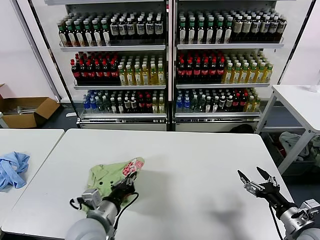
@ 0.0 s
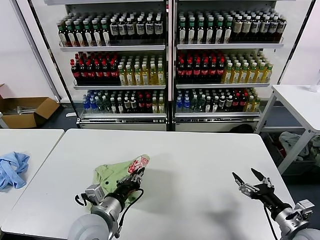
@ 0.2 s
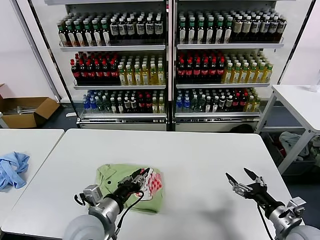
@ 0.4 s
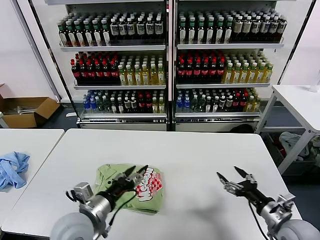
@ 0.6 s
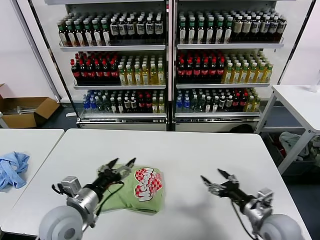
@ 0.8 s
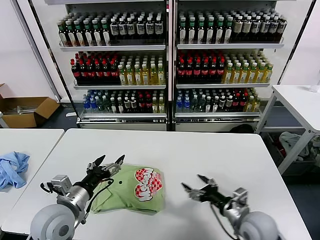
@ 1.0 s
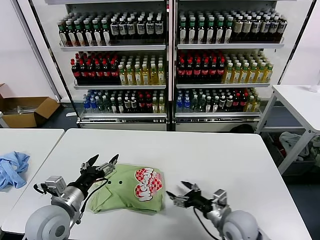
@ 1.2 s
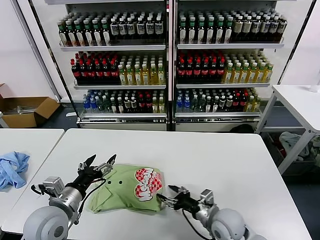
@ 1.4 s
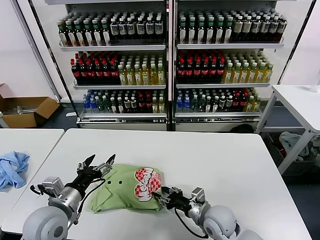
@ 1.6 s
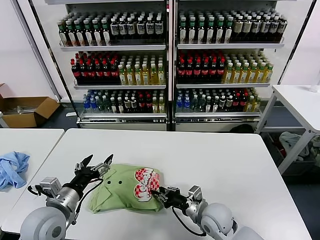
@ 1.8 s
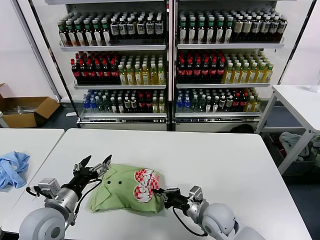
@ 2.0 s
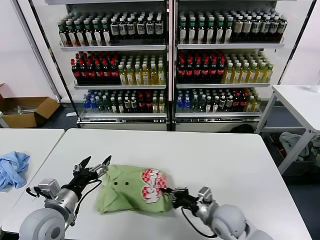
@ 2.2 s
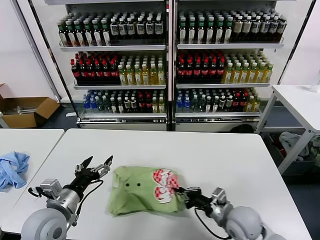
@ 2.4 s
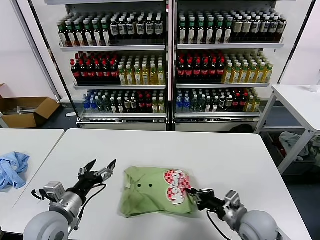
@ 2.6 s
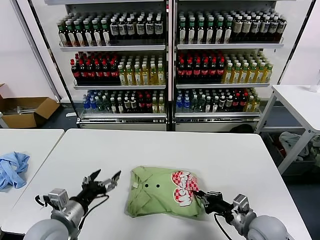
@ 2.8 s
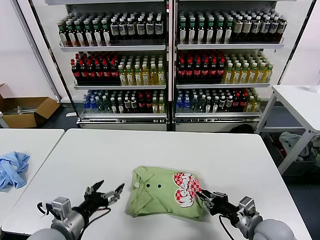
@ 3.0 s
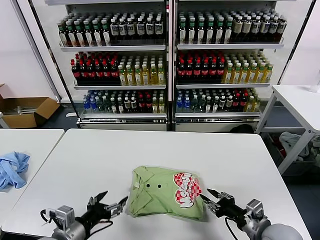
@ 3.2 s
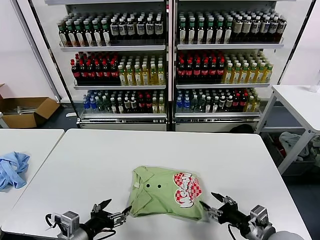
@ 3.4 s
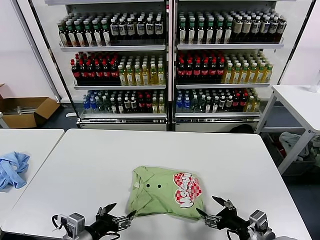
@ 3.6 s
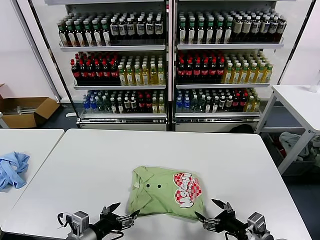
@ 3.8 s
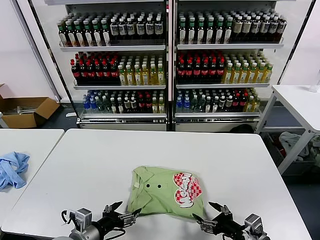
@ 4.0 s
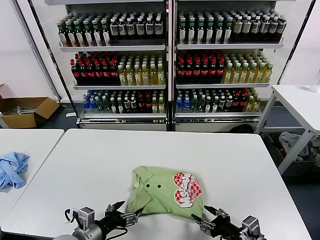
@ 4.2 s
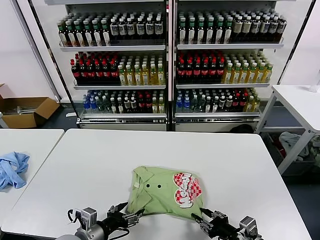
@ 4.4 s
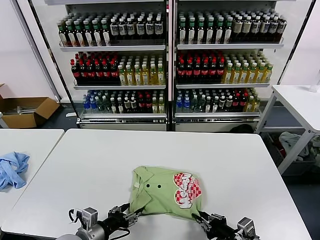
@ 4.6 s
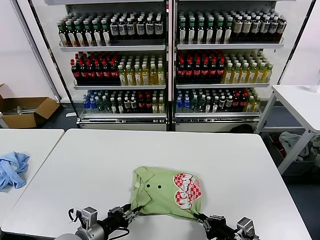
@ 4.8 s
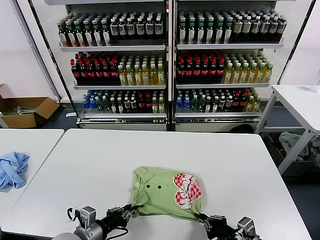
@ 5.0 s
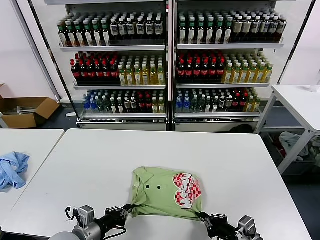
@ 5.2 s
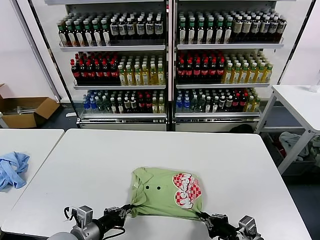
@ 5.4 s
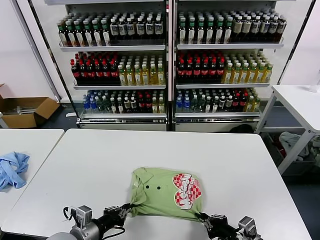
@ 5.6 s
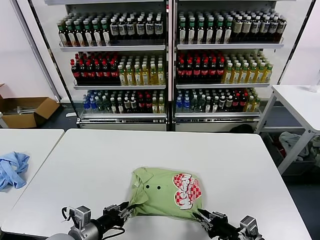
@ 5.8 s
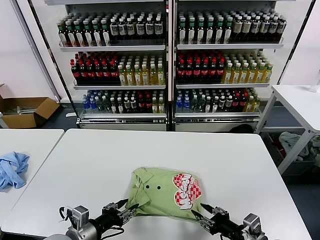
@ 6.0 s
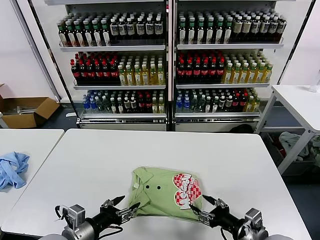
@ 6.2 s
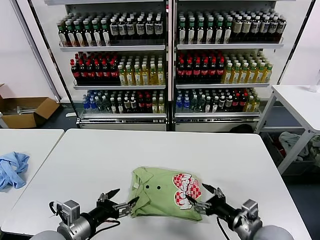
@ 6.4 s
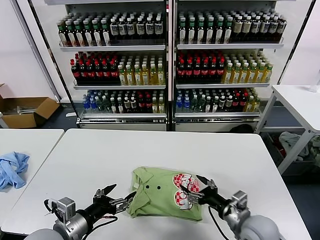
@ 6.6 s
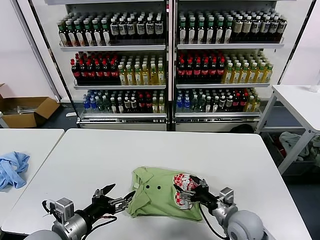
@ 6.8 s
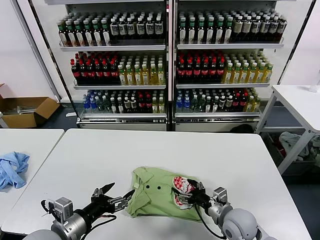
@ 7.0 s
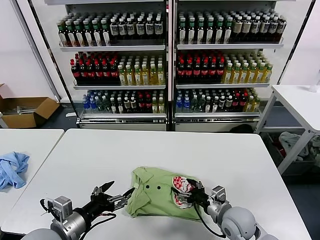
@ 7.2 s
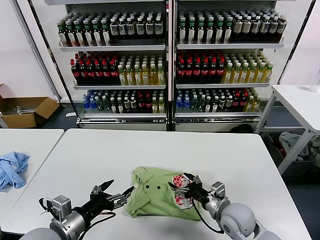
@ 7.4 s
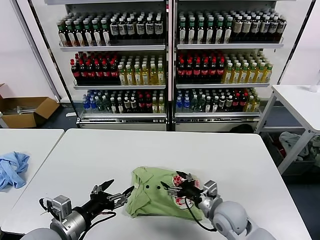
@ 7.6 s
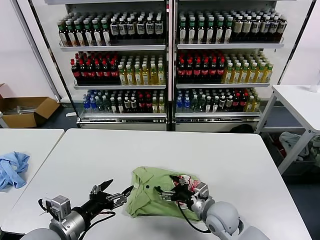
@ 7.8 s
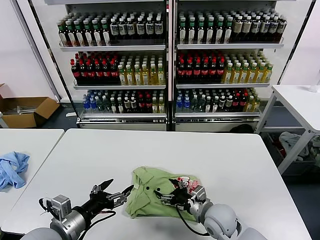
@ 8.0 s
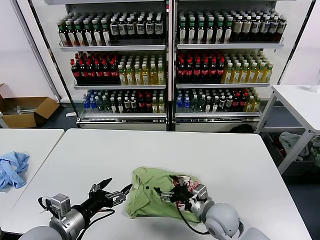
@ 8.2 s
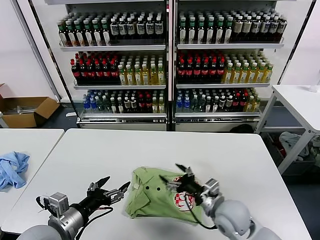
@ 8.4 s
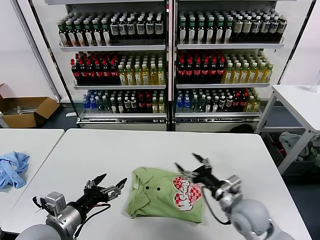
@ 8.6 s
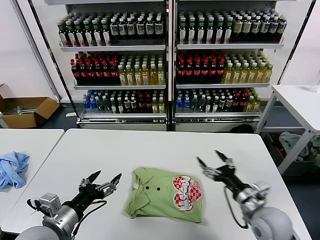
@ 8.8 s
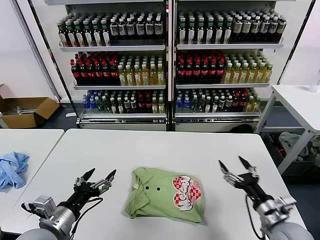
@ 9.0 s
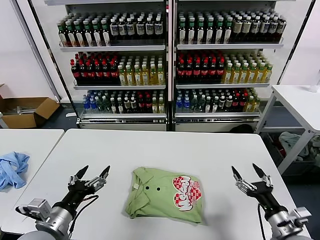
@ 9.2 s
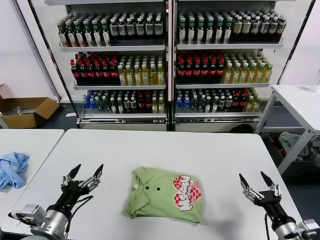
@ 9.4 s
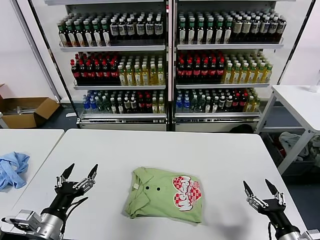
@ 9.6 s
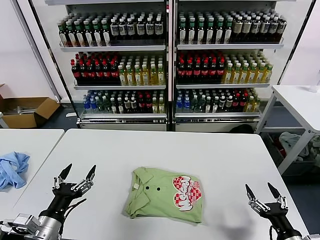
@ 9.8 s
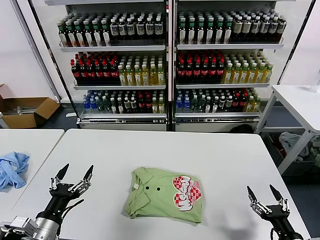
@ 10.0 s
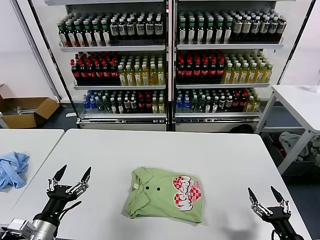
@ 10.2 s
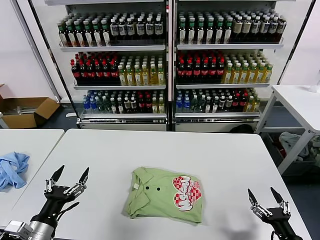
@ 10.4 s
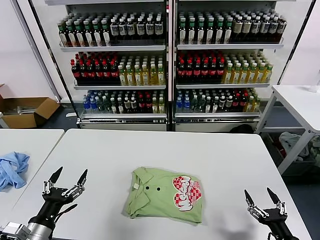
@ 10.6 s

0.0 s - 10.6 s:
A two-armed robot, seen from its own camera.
Task of the whole recording: fold and organize the clothes.
Step, 0.6 s - 8.4 s: Drag the clothes to the center of the table.
0.0 s - 1.6 s: The right gripper heads to the left and forward, covering approximately 25 cm, and closes; the left gripper heads to the left, covering roughly 10 cm, and opens its fingers.
1.6 s - 3.0 s: The right gripper is displaced to the right, backward and upward by about 15 cm, and closes up.
3.0 s - 4.6 s: The right gripper shifts about 5 cm backward, and opens and closes again. Meanwhile the left gripper ends up about 5 cm from where it was.
4.6 s - 6.0 s: The left gripper closes, then opens again.
6.0 s - 7.6 s: The right gripper shifts approximately 15 cm forward and to the left, and opens. Meanwhile the left gripper travels upward by some 5 cm, and opens.
7.6 s - 9.0 s: The right gripper is displaced to the right and backward by approximately 15 cm.
9.0 s - 10.6 s: The left gripper ends up roughly 5 cm from where it was; the right gripper is displaced backward, to the right and downward by about 15 cm.

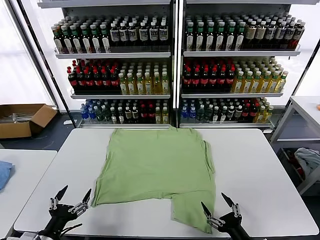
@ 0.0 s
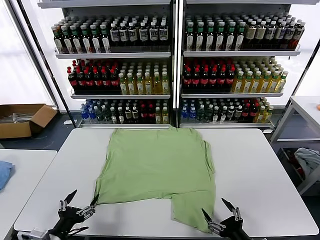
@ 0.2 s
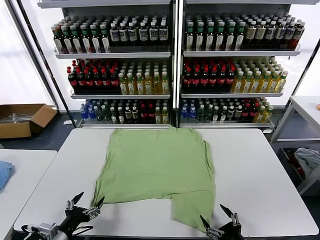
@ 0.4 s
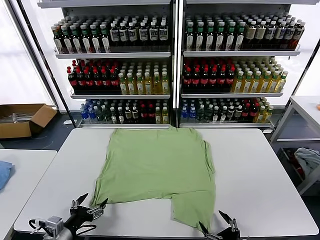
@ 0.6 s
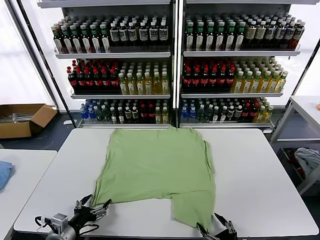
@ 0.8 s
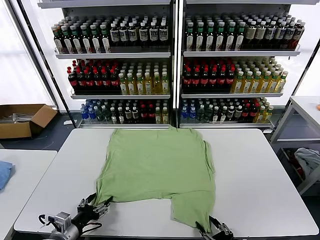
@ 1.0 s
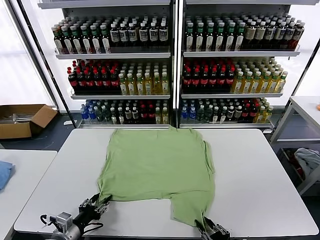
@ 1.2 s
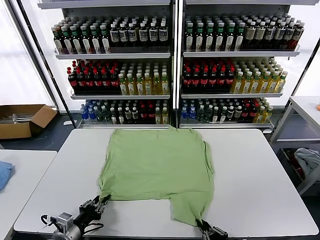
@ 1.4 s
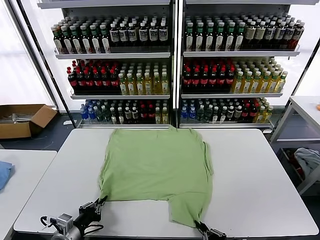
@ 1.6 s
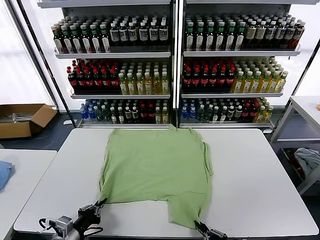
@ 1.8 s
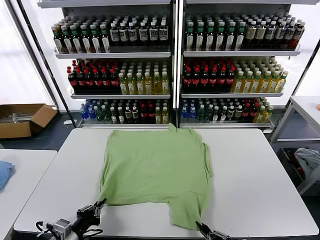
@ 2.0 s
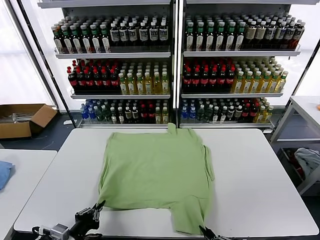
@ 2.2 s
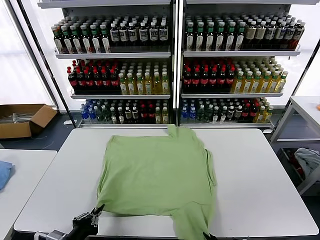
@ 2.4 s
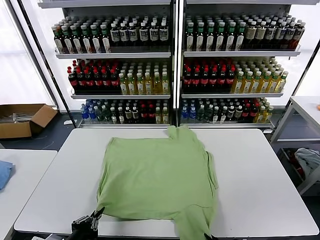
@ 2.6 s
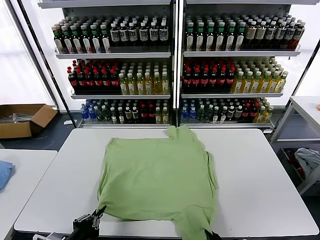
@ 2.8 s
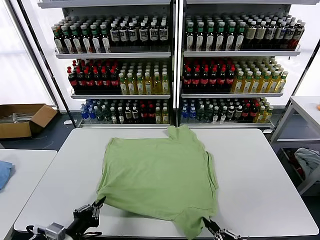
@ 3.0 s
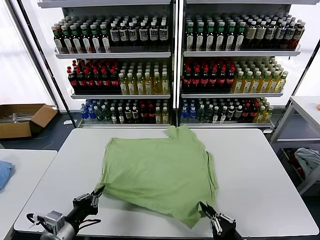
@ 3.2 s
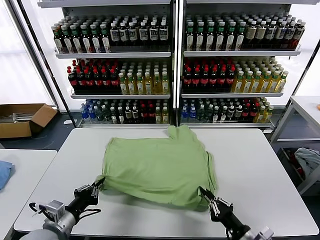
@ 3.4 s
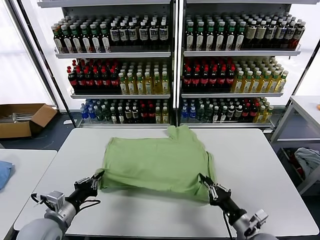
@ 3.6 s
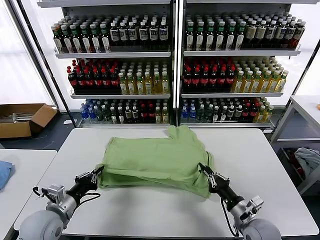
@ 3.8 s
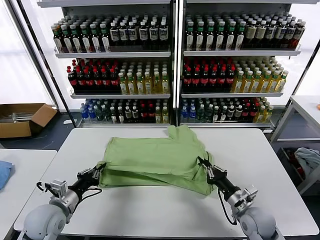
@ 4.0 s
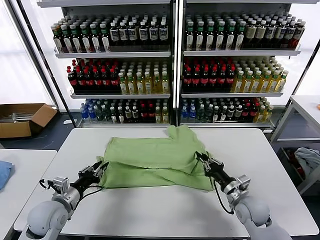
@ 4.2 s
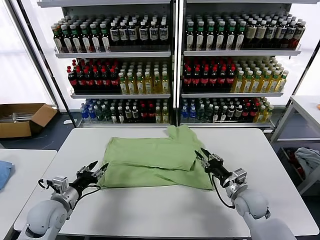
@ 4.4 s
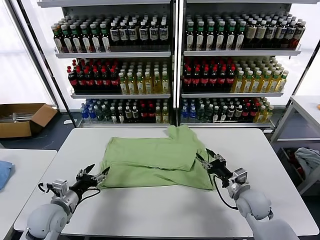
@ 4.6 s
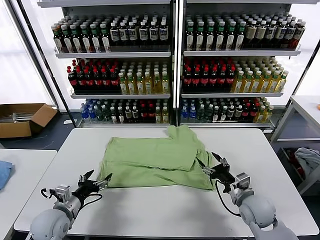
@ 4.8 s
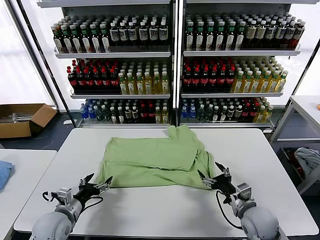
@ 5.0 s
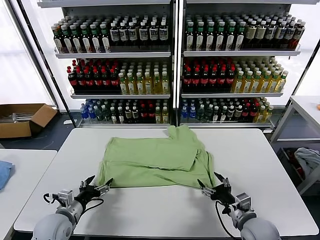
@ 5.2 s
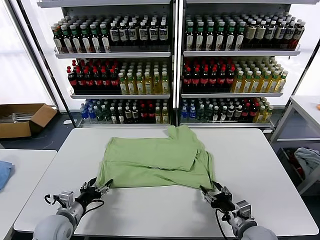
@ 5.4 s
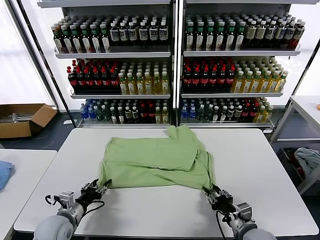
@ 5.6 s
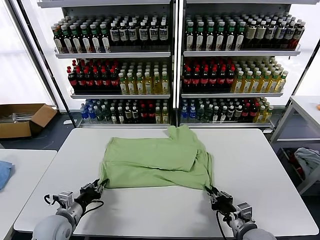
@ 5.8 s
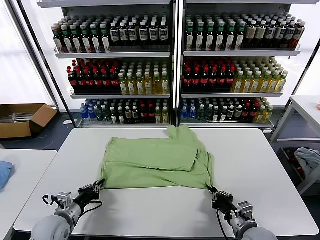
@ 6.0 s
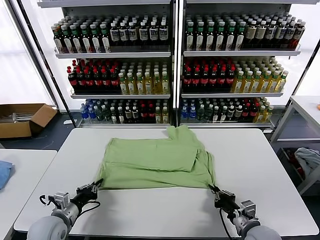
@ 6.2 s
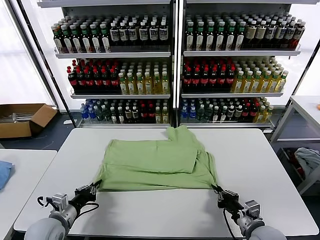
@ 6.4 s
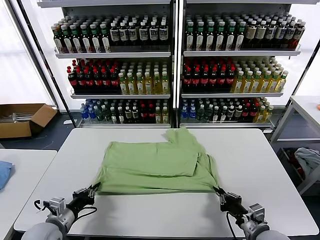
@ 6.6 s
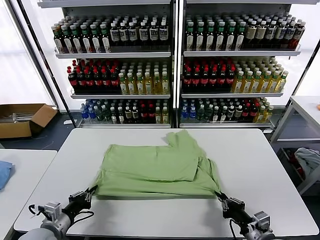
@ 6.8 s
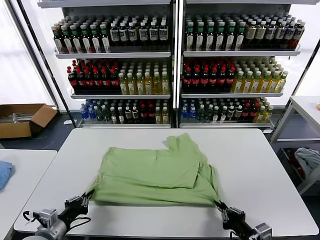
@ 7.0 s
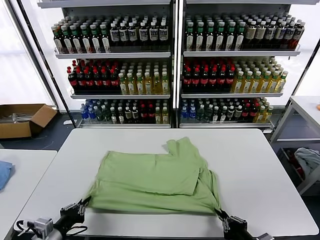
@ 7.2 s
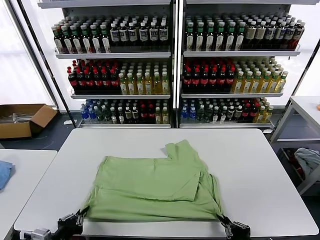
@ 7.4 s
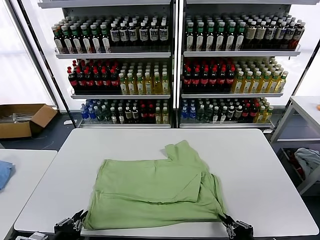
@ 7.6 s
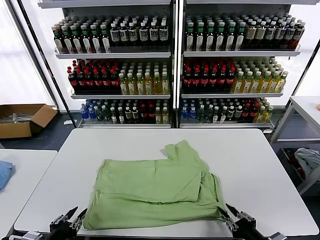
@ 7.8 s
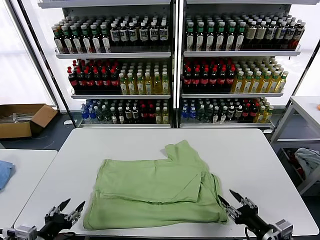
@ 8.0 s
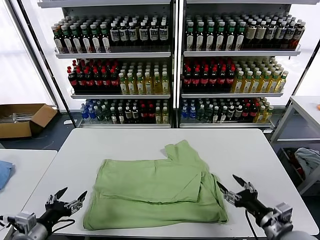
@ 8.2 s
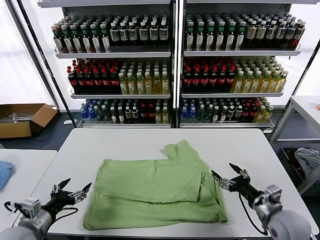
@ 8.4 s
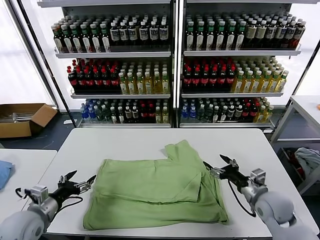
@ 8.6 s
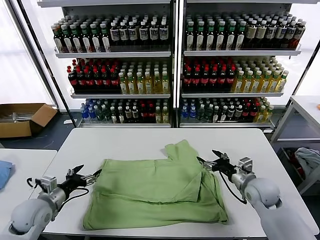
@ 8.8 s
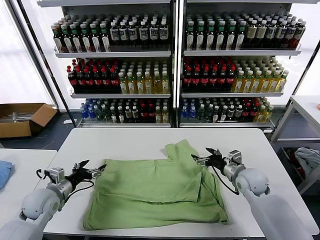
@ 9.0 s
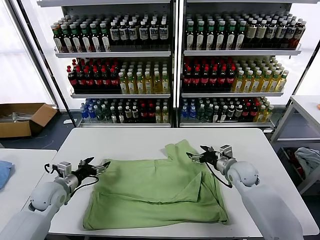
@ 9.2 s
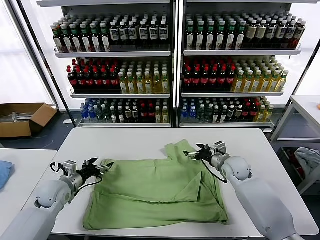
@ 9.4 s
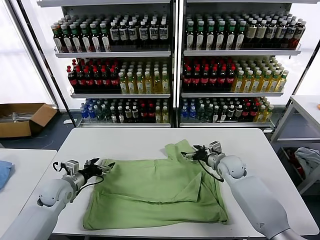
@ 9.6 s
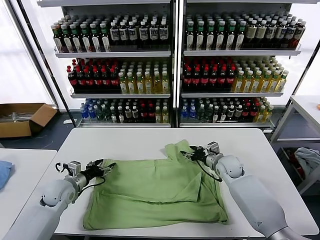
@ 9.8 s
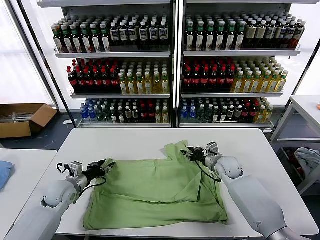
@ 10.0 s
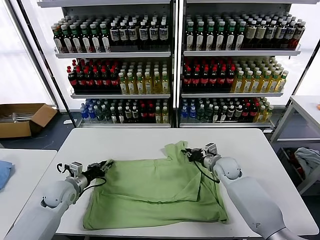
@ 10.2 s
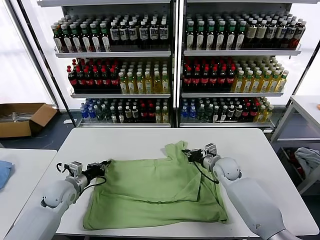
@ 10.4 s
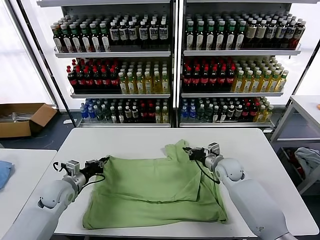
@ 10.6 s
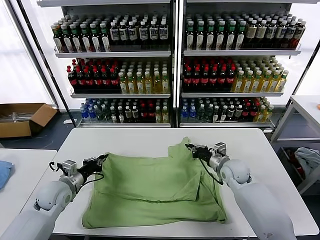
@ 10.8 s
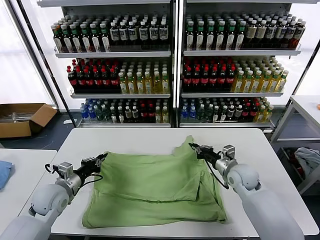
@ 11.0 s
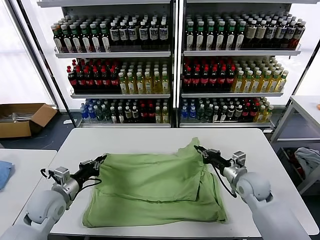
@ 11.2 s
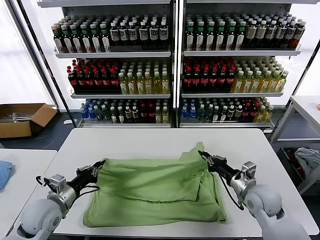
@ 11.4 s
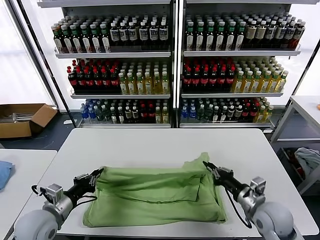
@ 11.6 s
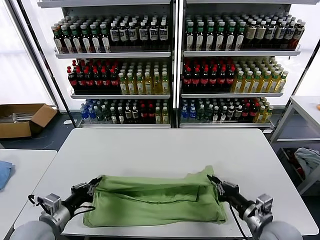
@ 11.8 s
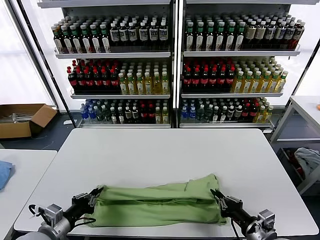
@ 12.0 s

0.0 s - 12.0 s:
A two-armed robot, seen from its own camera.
Task of the whole recording: fold and organize the clothes.
Step, 0.0 s - 1.6 s: use both grippers simultaneously to clamp the lower edge of the clothing fabric.
Step, 1.8 s - 4.6 s: use both grippers to drag the lower edge of the fabric forward and fold it over the upper edge.
Step, 4.8 s - 7.8 s: Drag the clothes downward with both gripper.
Step, 8.0 s - 10.4 s: use both grippers simultaneously to clamp the upper edge of the clothing fabric.
1.6 s - 3.0 s: The left gripper heads upward and backward, covering approximately 10 cm.
3.0 s - 4.4 s: The left gripper goes roughly 15 cm forward, and opens, while the right gripper is displaced forward by approximately 25 cm, and opens up.
4.4 s - 6.0 s: The right gripper moves backward, roughly 10 cm, and closes up. Meanwhile the left gripper ends up some 5 cm from where it was, and closes up.
6.0 s - 7.6 s: The two grippers go approximately 15 cm backward.
7.6 s - 9.0 s: The right gripper goes about 30 cm forward, and opens its fingers; the left gripper is displaced forward by roughly 20 cm, and opens up.
9.0 s - 10.4 s: The right gripper shifts some 10 cm forward and to the left, and closes its fingers. Meanwhile the left gripper heads forward, covering about 5 cm, and closes.
10.4 s - 12.0 s: The left gripper heads backward, covering some 15 cm, while the right gripper travels backward by about 30 cm.
